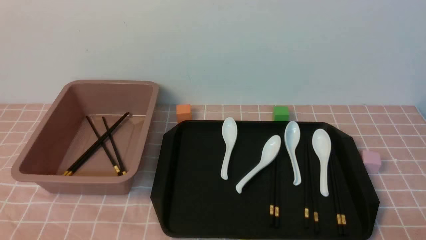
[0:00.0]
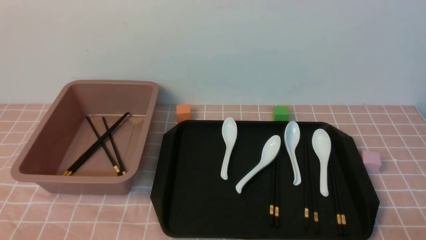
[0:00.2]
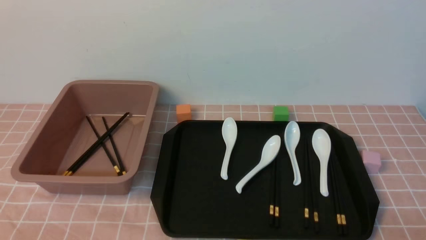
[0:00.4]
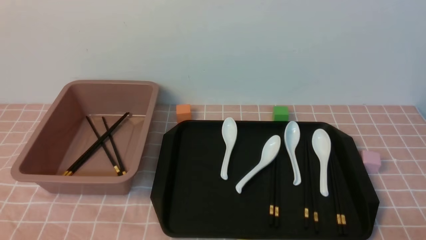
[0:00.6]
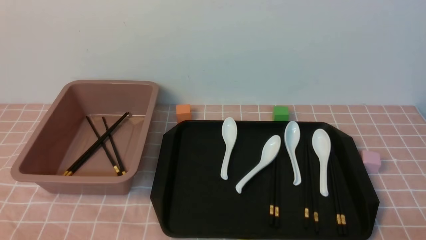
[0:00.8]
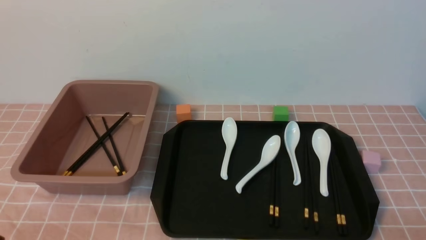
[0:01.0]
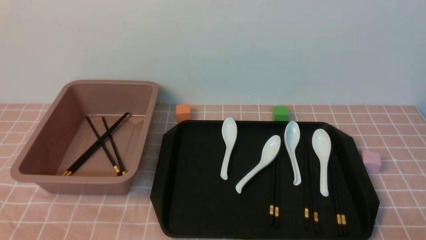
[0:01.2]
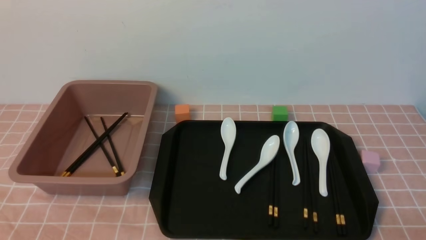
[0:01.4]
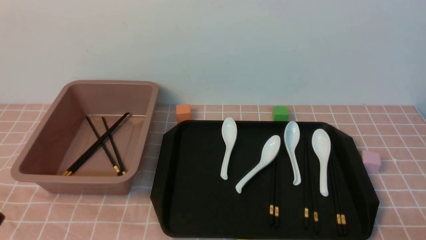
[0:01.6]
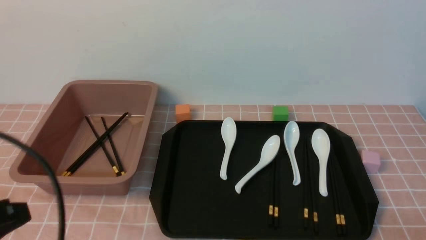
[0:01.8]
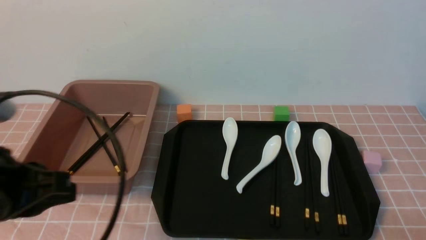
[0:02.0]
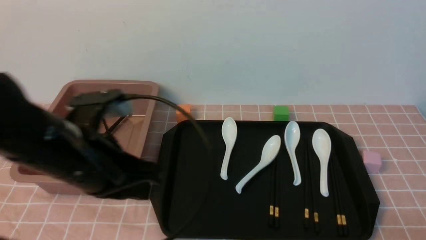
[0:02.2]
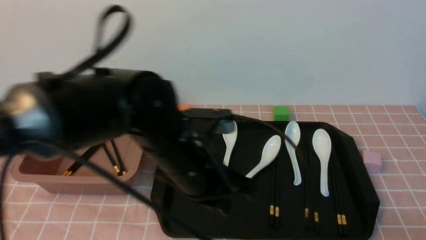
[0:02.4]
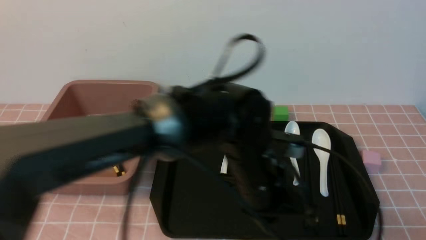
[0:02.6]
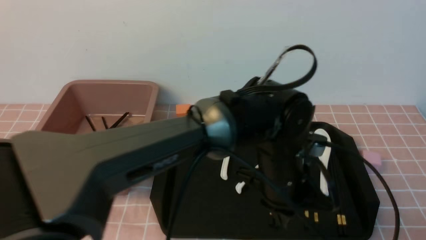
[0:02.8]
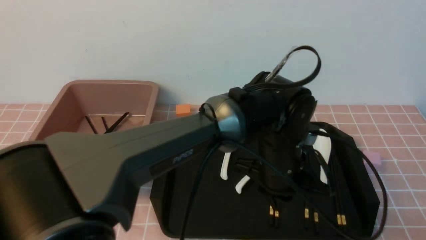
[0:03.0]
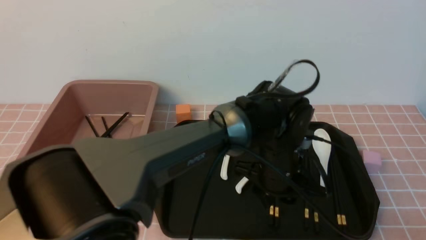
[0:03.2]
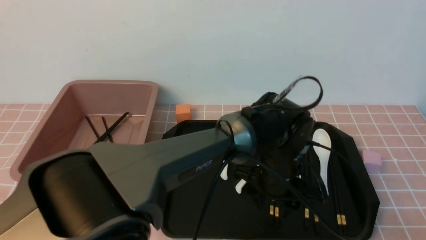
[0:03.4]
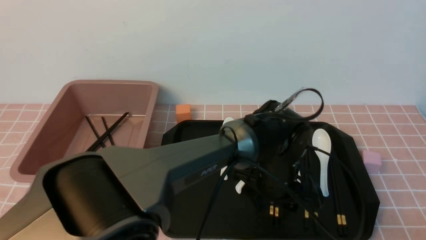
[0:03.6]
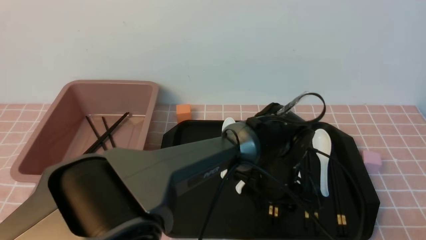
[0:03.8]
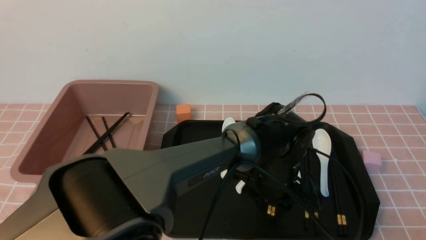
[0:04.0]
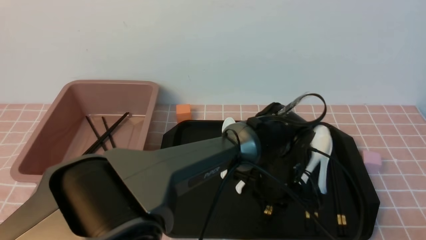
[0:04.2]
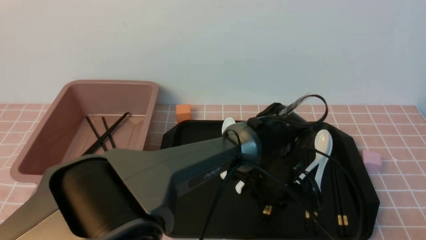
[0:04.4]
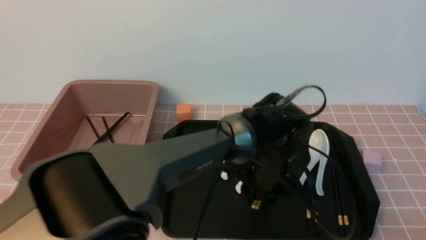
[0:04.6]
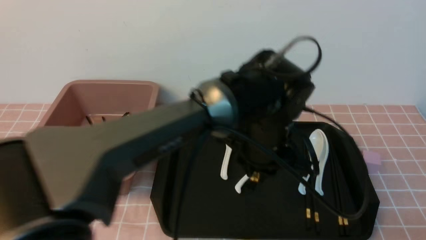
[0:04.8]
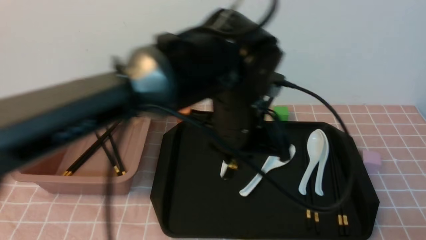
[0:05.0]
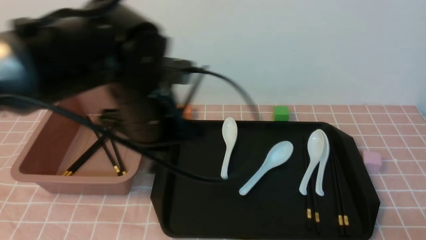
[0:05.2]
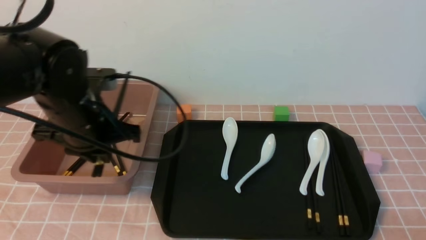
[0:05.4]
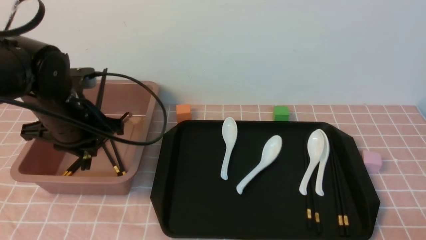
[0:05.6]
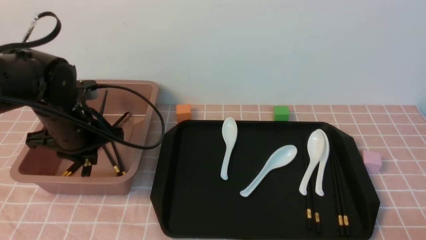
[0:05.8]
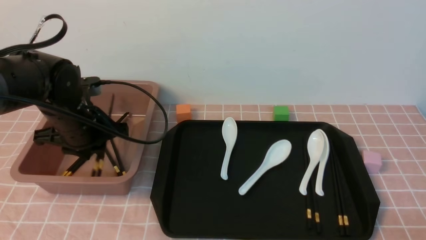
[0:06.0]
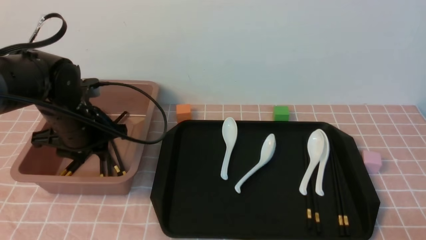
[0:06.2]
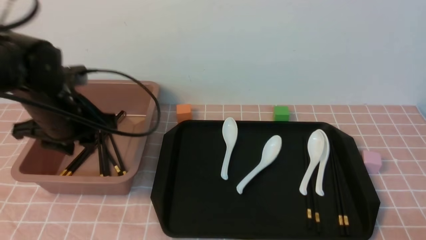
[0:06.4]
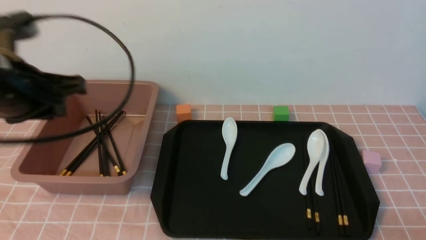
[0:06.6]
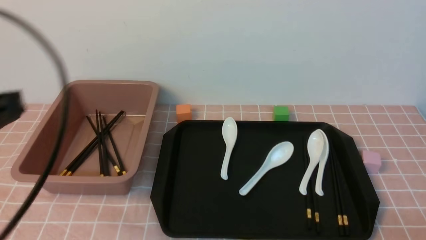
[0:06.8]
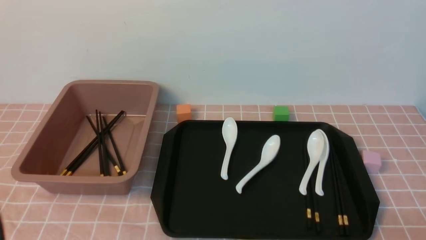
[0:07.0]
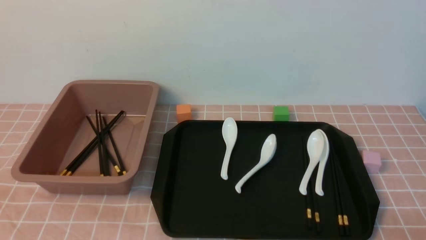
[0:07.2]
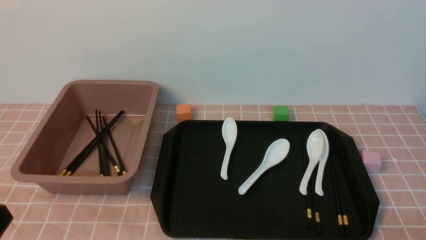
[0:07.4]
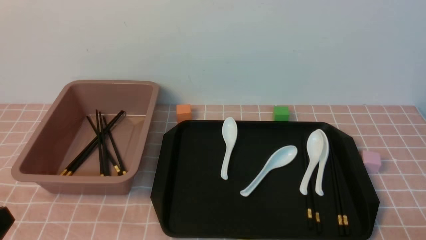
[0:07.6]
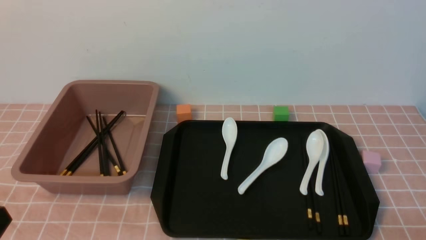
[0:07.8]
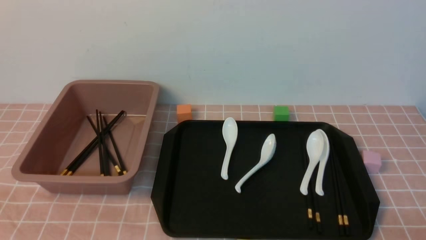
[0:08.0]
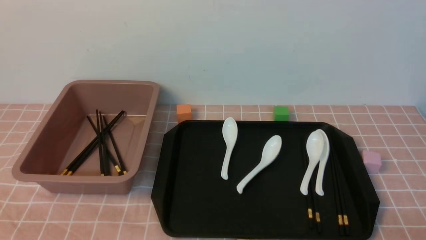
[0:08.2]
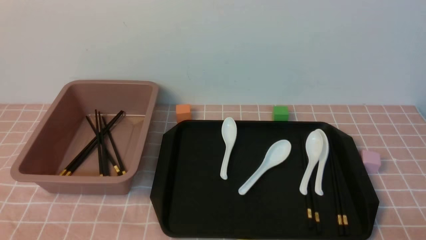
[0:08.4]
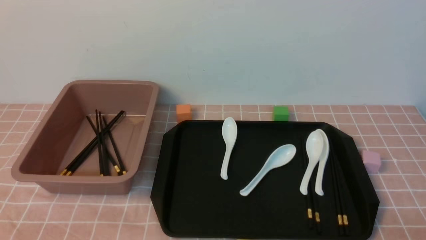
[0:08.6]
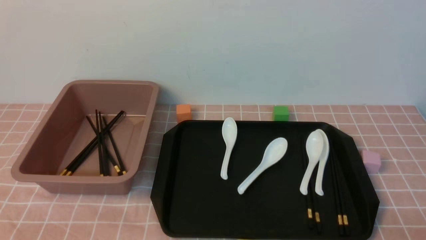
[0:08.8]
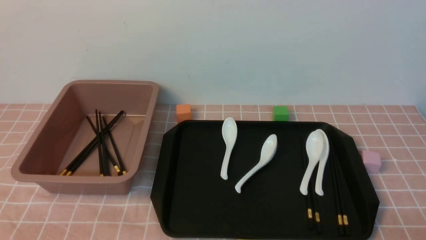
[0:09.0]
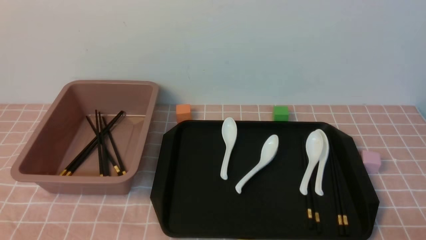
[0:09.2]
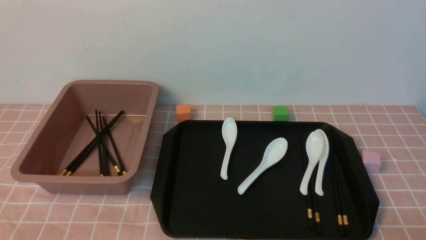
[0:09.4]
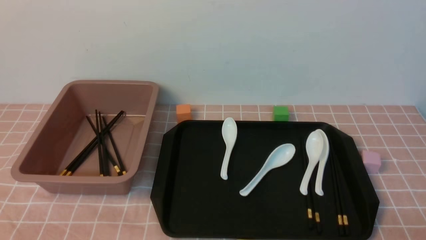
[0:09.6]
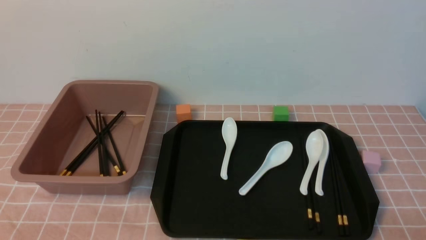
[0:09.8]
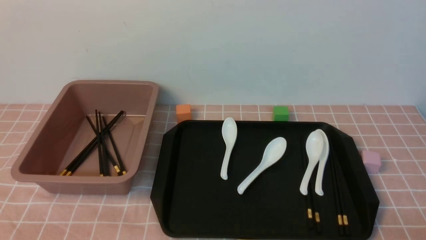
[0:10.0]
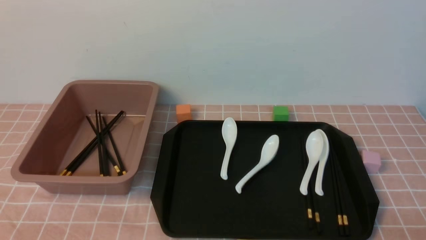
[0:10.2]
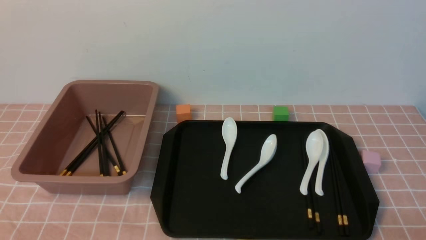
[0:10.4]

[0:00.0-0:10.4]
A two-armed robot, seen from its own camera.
Step, 0:00.0 to 0:04.8: use the left arm to grab a pair of chopsticks.
Step, 0:05.0 to 0:06.4: use the left arm to put the chopsticks into the lunch box.
0:00.0 to 0:01.4: The left gripper heads upward, covering some 5 cm.
0:01.4 to 0:03.0: The left gripper travels to the right and forward by roughly 40 cm.
0:03.0 to 0:04.4: The left gripper shifts approximately 5 cm downward, and opens and closes again.
0:04.4 to 0:06.0: The left gripper travels to the left by roughly 30 cm.
0:06.0 to 0:07.4: The left gripper is displaced backward by approximately 30 cm, and closes up.
0:07.4 to 0:09.0: The left gripper travels downward by about 10 cm.
0:09.0 to 0:10.4: Both grippers stay put.

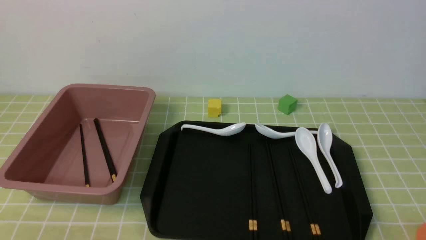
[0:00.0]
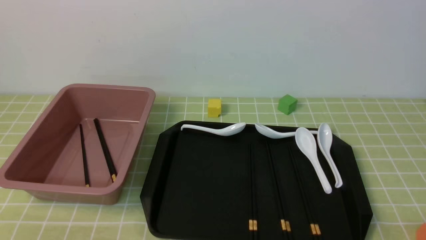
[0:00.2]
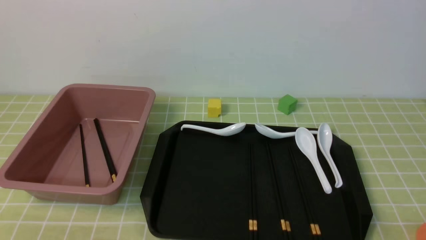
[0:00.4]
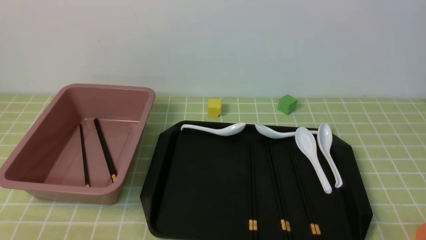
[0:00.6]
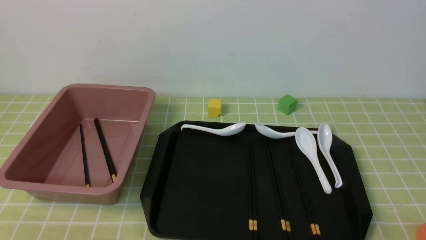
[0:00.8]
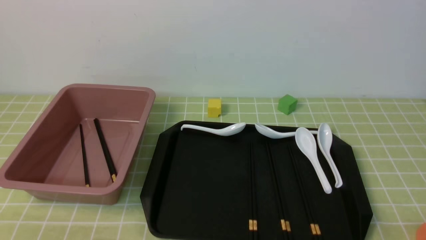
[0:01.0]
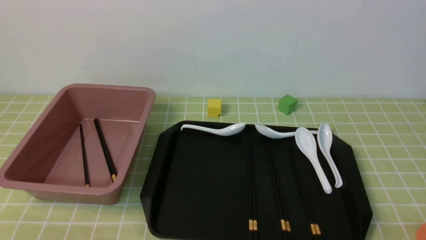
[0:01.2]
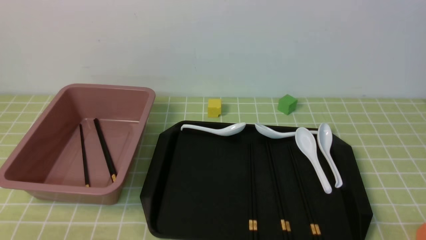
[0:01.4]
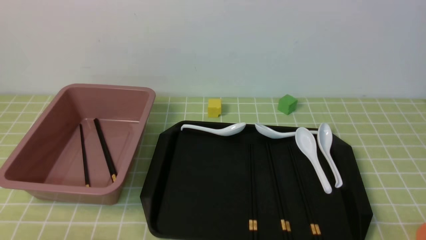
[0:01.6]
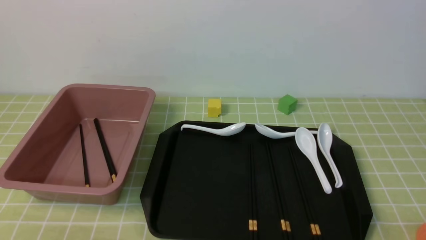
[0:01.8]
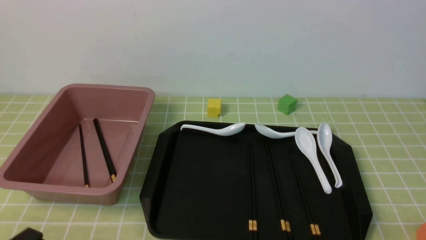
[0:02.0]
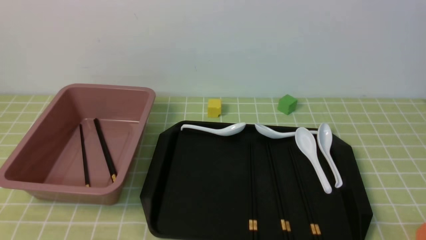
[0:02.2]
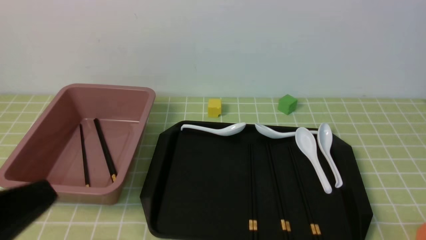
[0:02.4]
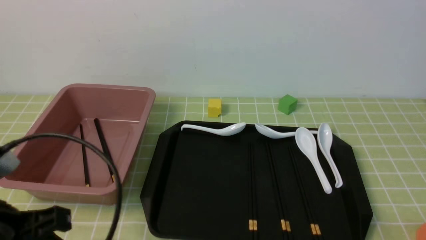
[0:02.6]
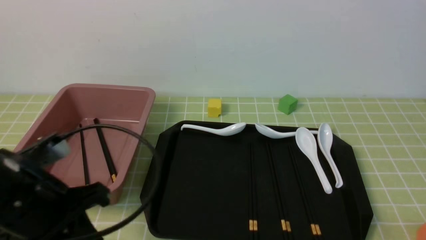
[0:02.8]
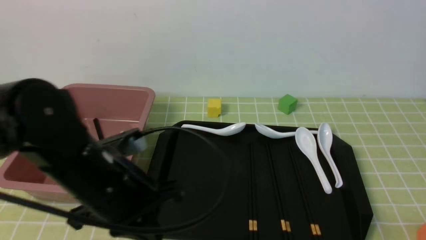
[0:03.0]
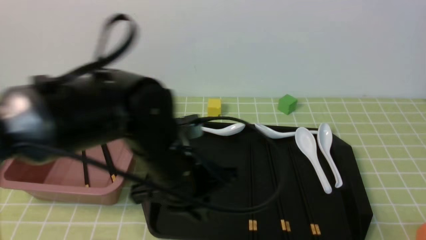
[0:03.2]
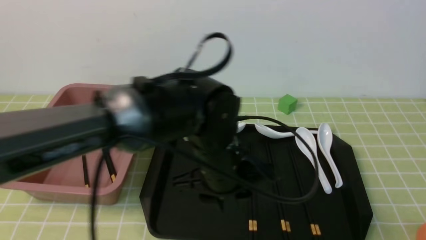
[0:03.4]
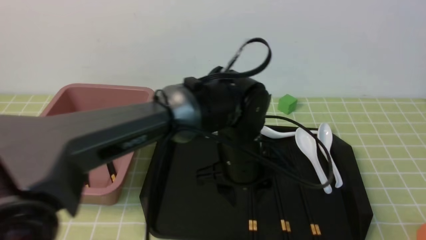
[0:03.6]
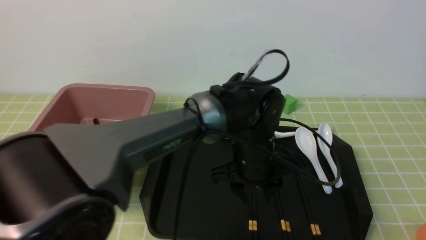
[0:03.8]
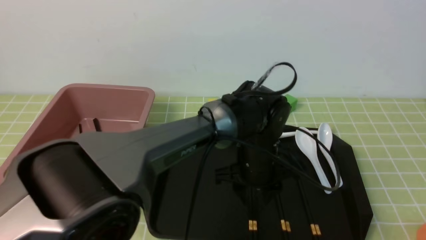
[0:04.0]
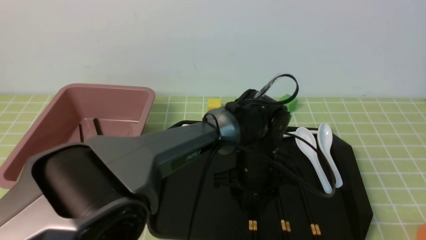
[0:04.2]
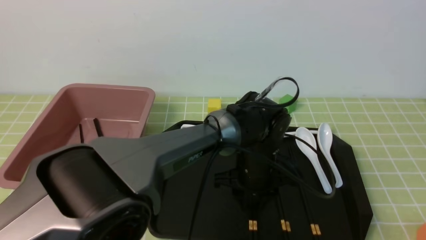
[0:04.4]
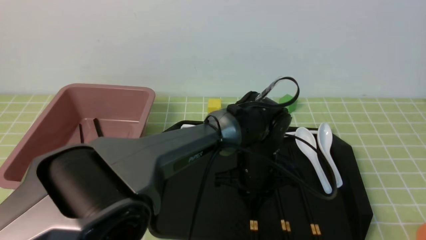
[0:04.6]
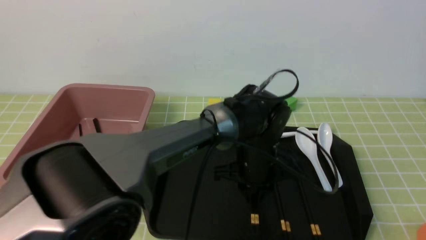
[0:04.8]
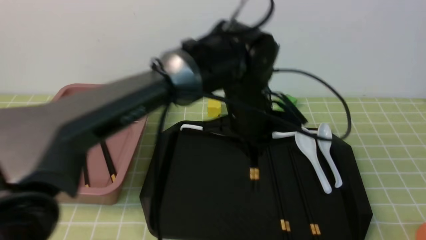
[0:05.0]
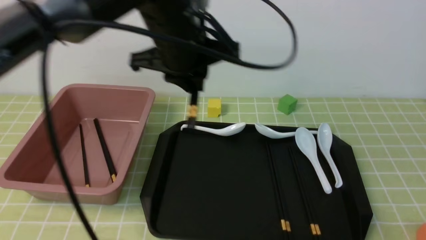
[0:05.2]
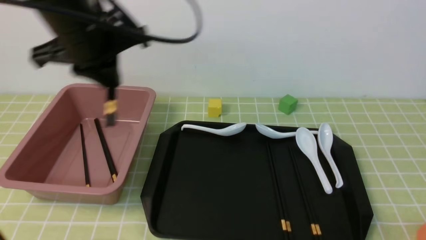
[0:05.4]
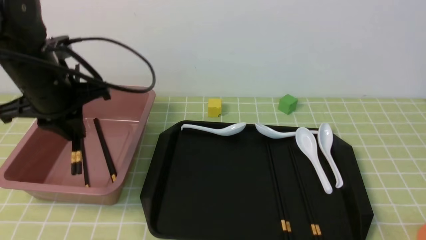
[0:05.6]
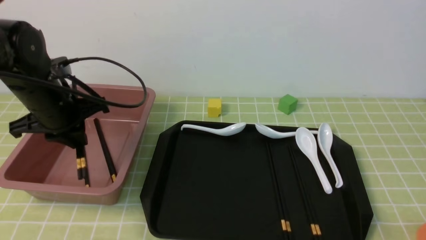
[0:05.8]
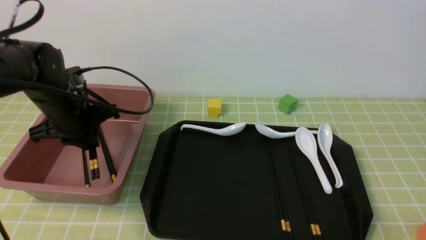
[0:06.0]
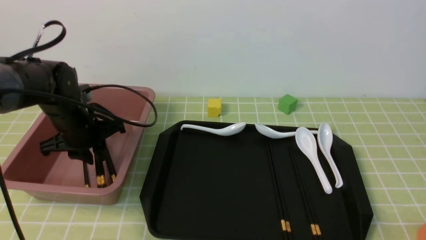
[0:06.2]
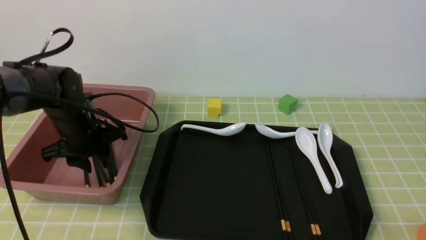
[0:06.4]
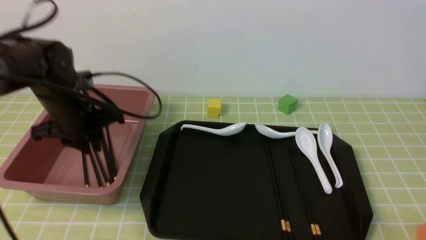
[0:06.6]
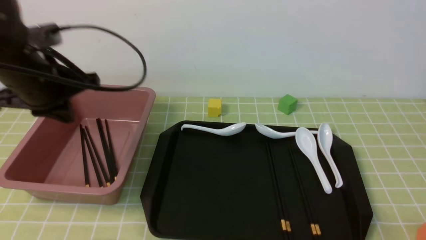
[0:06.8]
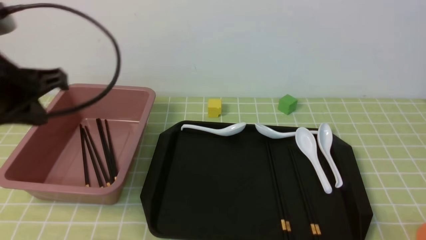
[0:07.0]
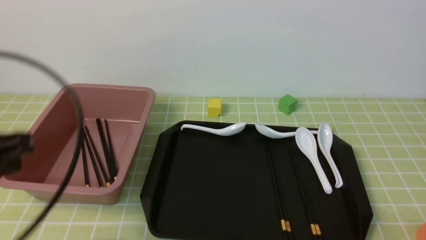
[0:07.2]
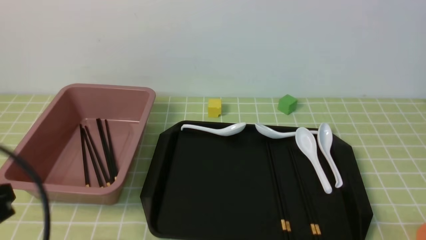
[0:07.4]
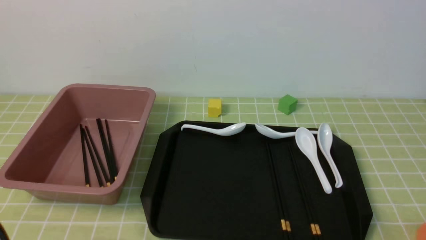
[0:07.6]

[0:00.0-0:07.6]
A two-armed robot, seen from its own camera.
Step, 0:00.0 to 0:04.8: use the left arm to grab a pair of chopsticks.
Step, 0:05.0 to 0:06.8: use the left arm to put the chopsticks into the lunch box.
0:01.6 to 0:03.0: The left gripper heads forward, upward and to the right, covering about 20 cm.
0:03.0 to 0:04.6: The left gripper heads to the right, forward and downward, covering approximately 30 cm, and opens.
0:04.6 to 0:06.0: The left gripper goes some 30 cm to the left.
0:06.0 to 0:07.6: The left gripper goes roughly 30 cm backward, and closes its fingers.
